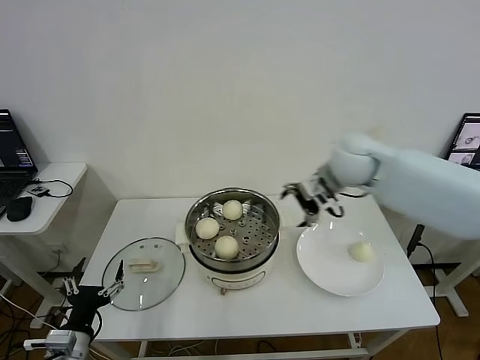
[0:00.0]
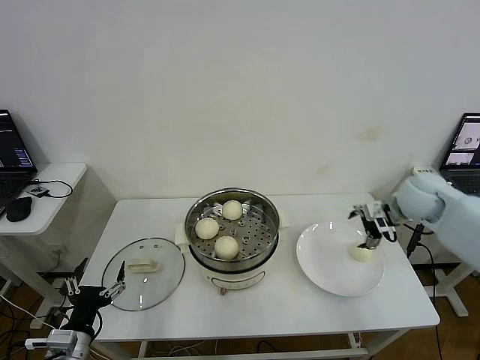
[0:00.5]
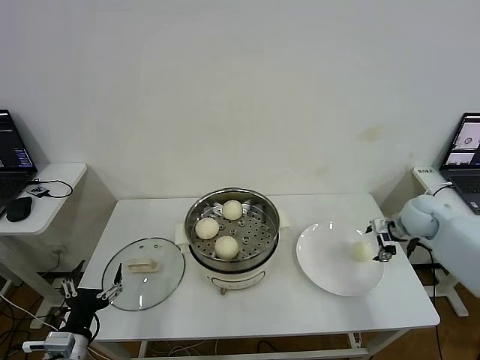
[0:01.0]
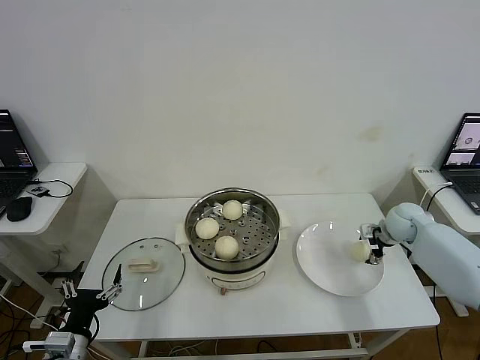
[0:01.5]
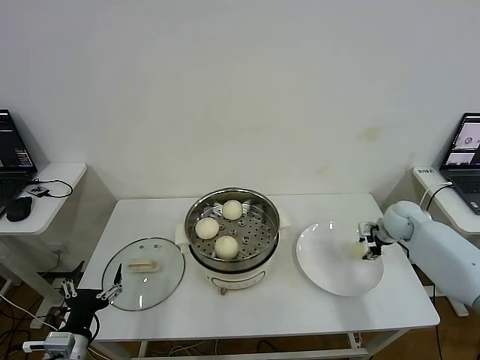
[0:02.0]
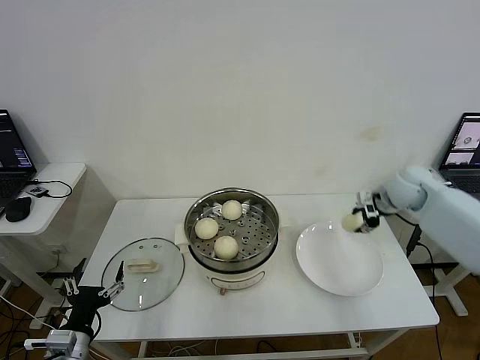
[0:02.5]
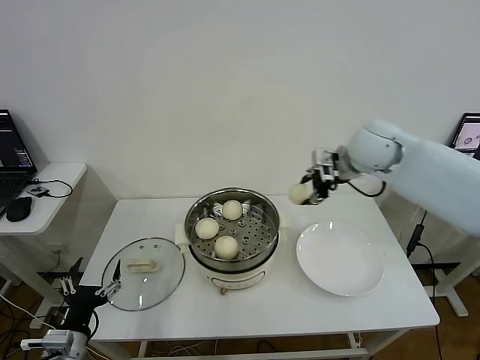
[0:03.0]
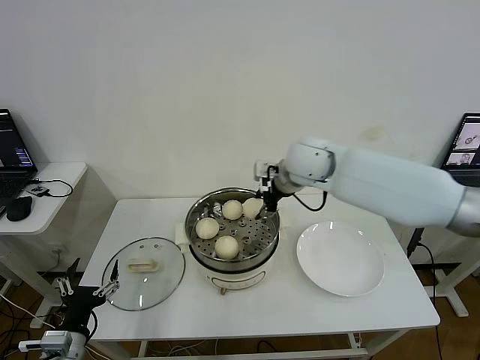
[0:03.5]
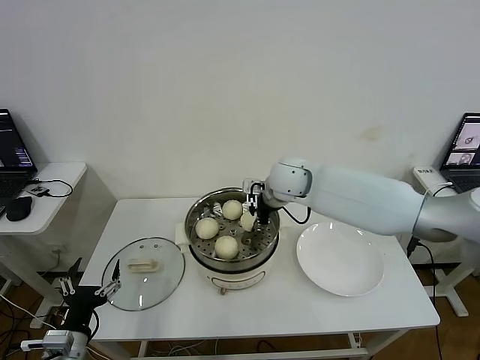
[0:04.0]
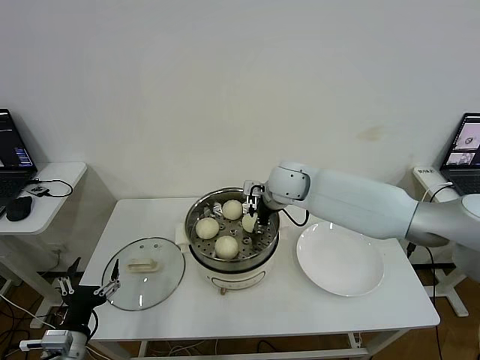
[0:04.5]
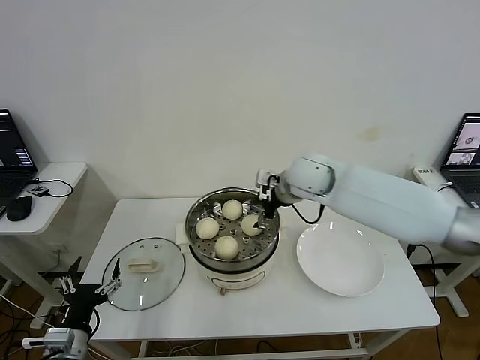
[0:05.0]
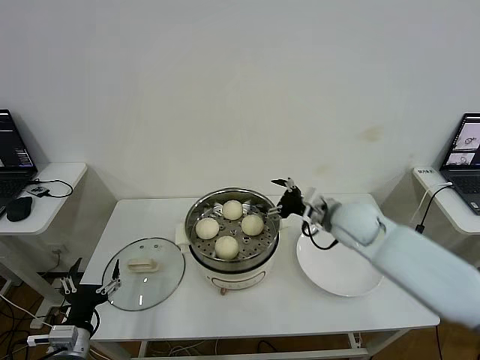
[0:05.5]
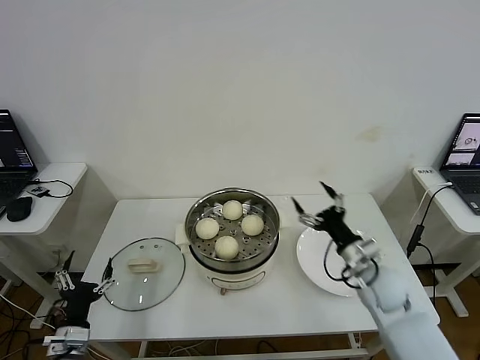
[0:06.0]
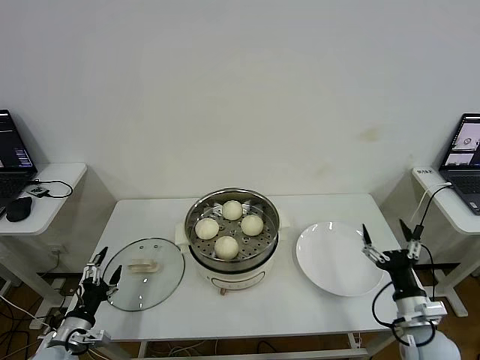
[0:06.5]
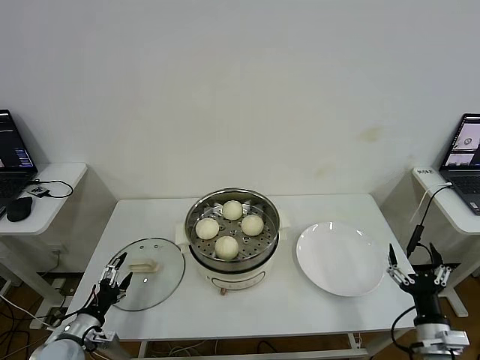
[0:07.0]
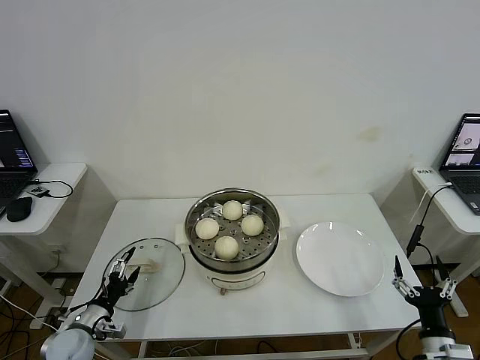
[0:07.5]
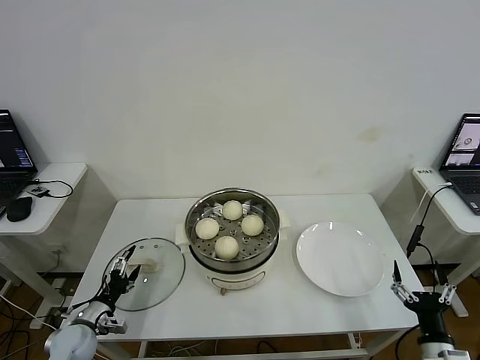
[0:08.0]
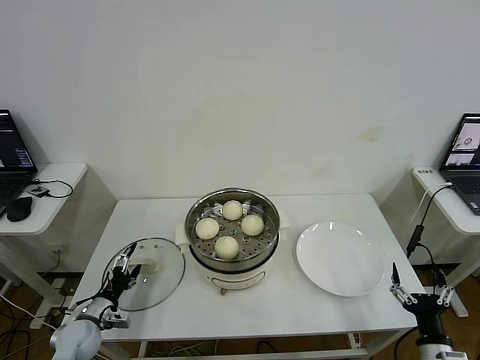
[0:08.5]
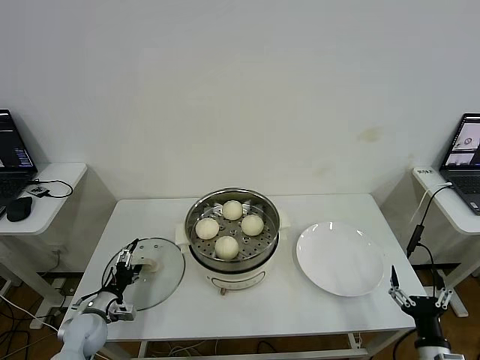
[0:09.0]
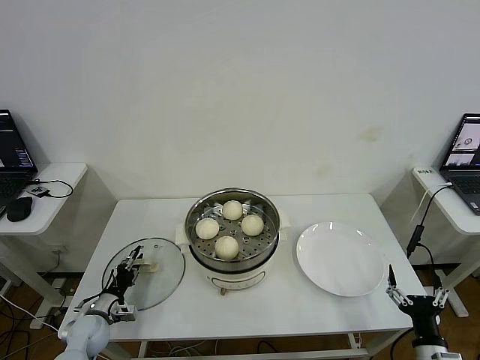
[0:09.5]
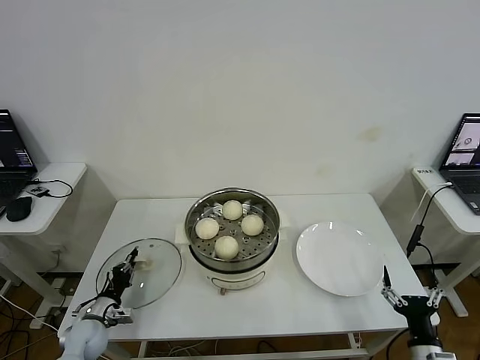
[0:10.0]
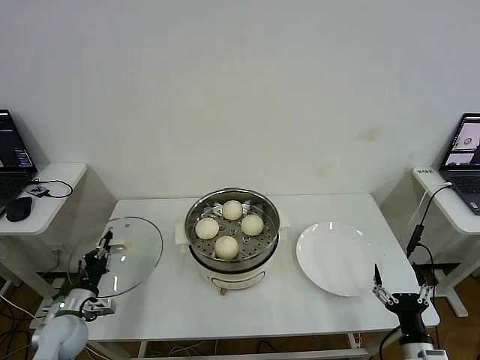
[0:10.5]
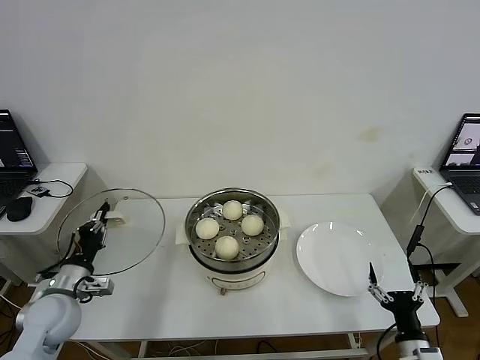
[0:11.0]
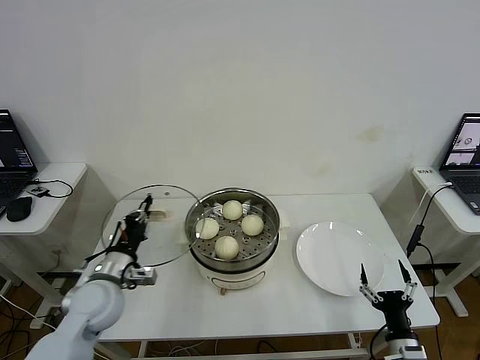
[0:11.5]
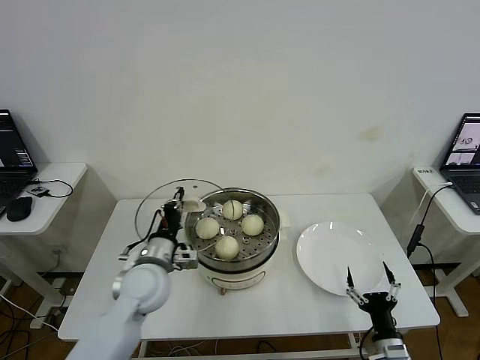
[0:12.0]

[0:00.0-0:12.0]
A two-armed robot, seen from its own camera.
Step, 0:00.0 to 0:01.5: Grasp the baozi in the plate with right gripper.
Step, 0:02.0 to 0:04.5: Place the baozi on the steamer with right gripper.
Step, 0:05.0 to 0:10.0: Grasp the pot lid with left gripper.
0:00.0 to 0:02.0: The right gripper travels to the right and downward by some 30 cm, and closes.
0:02.0 to 0:04.0: The right gripper shifts roughly 35 cm to the left and upward.
0:04.0 to 0:06.0: The right gripper goes roughly 30 cm to the right, backward and downward, and opens up.
0:06.0 to 0:08.0: The right gripper moves backward, to the right and downward, about 25 cm; the left gripper heads forward and downward, covering approximately 10 cm.
0:08.0 to 0:10.0: The left gripper closes up.
0:10.0 to 0:12.0: The left gripper heads upward and to the right, covering approximately 30 cm. Meanwhile the right gripper shifts by about 5 cm.

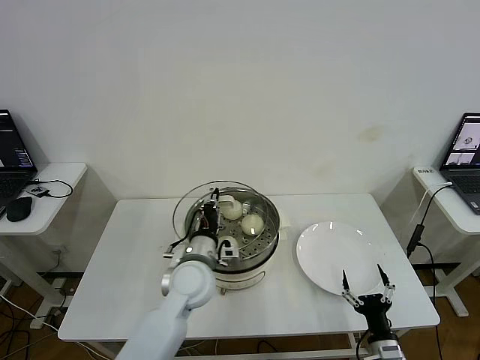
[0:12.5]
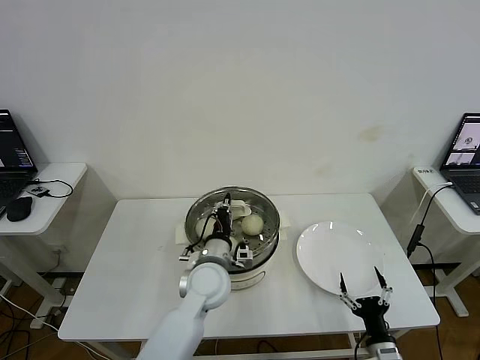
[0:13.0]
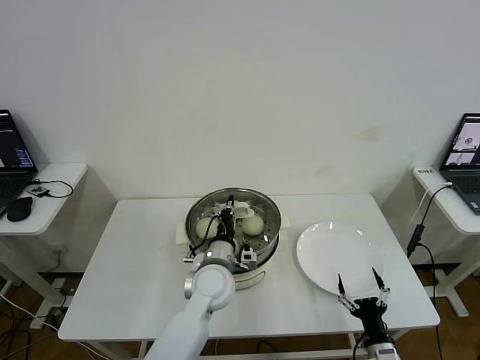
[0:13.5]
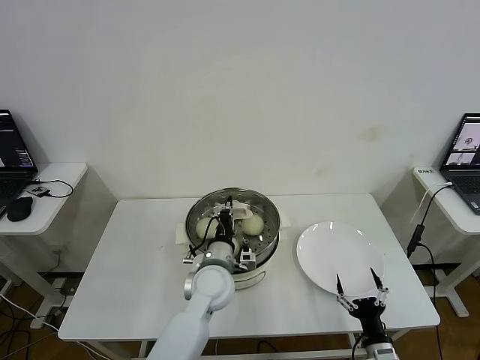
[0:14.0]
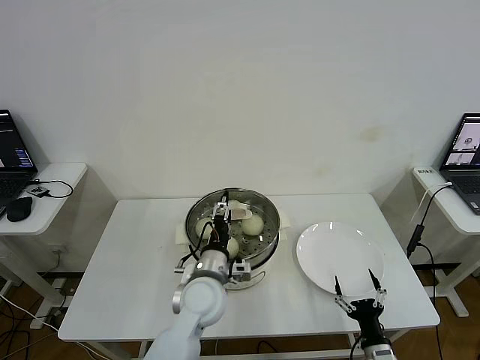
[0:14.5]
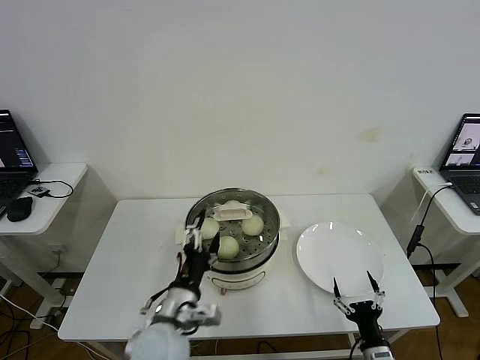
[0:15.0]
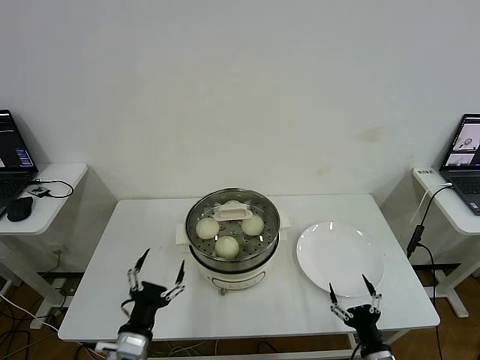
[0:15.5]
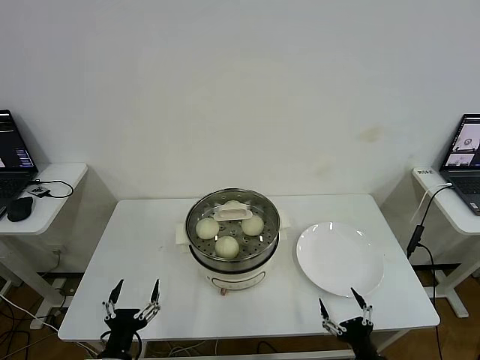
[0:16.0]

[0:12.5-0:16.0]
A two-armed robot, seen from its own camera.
0:12.5 to 0:14.5: The left gripper opens its fingers.
0:14.5 to 0:16.0: The left gripper shifts some 30 cm backward and to the left, and opens its fingers. Meanwhile the right gripper changes place by some 5 cm.
